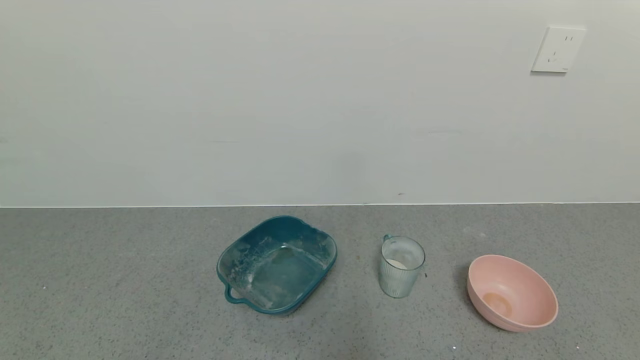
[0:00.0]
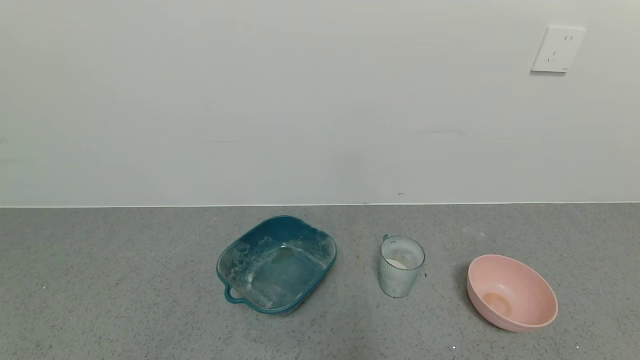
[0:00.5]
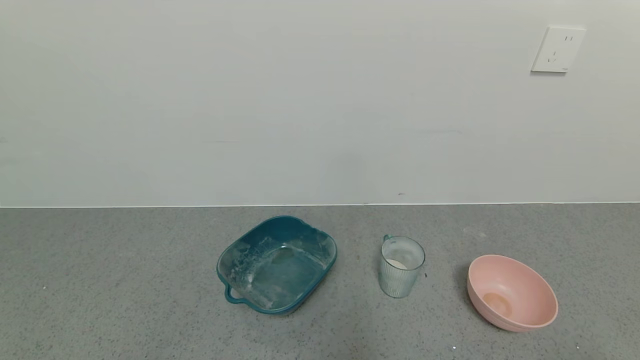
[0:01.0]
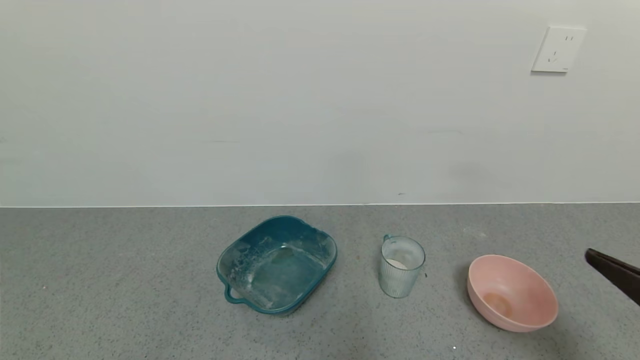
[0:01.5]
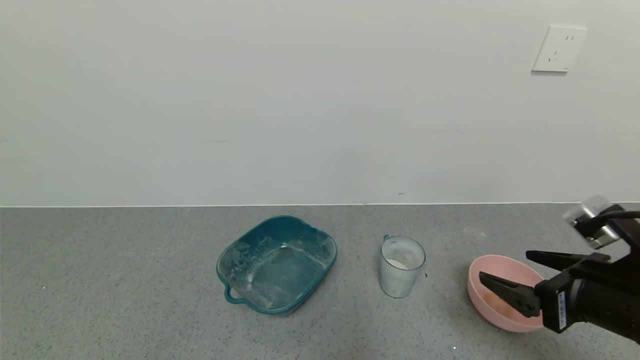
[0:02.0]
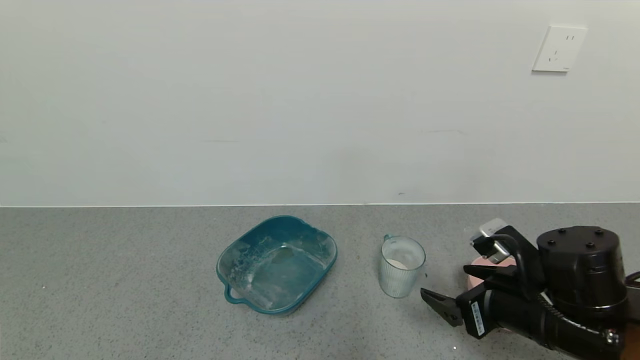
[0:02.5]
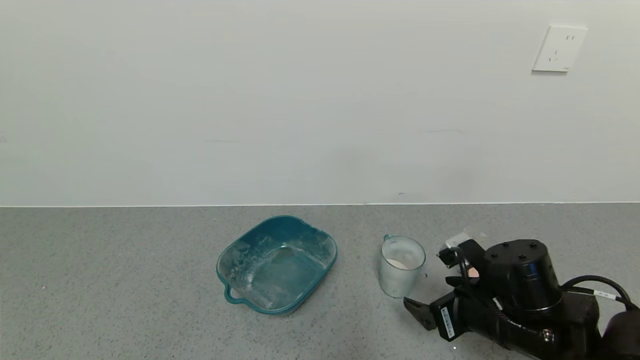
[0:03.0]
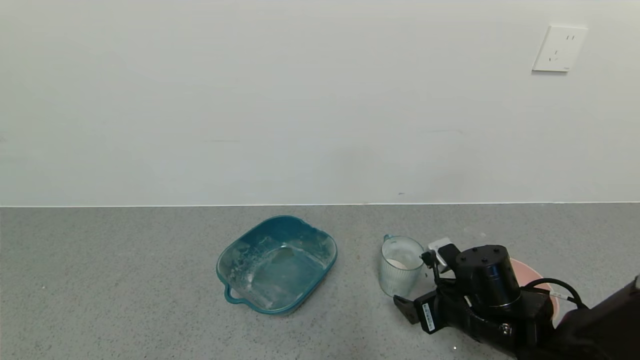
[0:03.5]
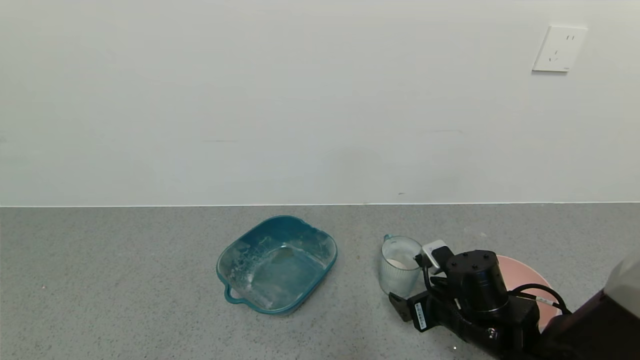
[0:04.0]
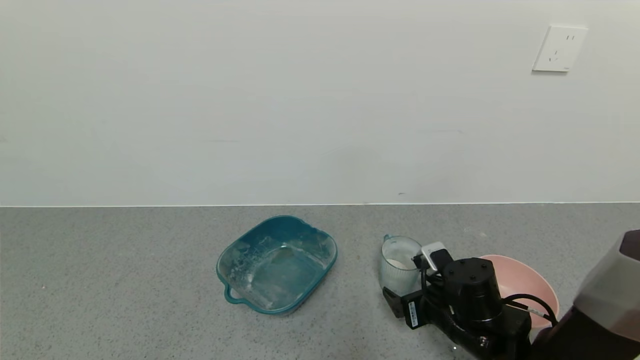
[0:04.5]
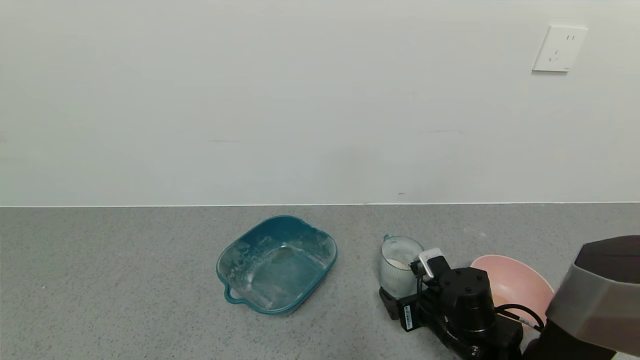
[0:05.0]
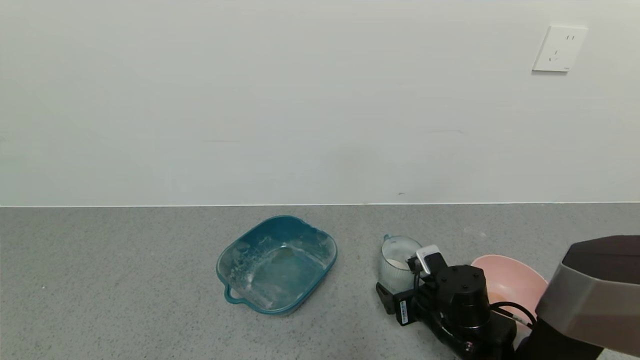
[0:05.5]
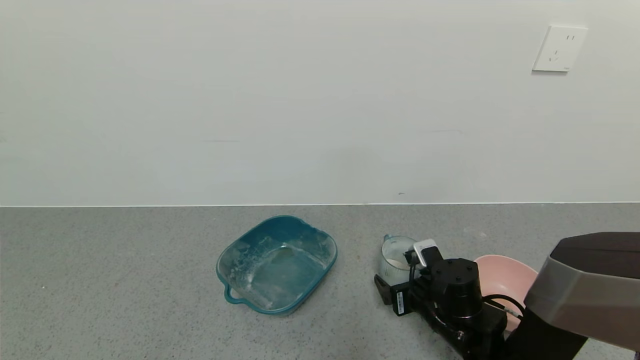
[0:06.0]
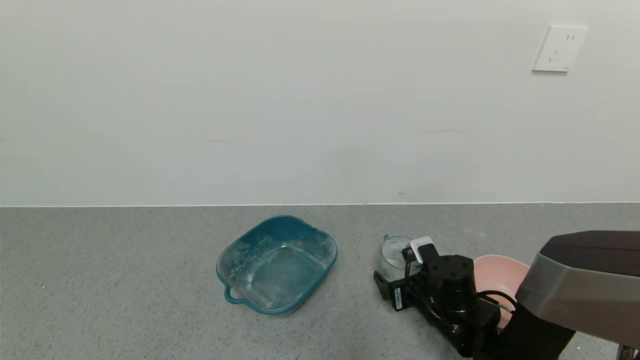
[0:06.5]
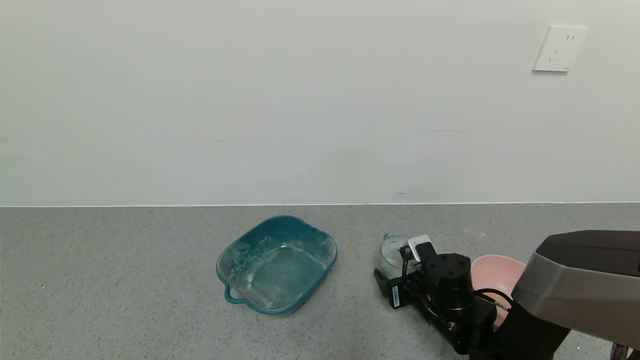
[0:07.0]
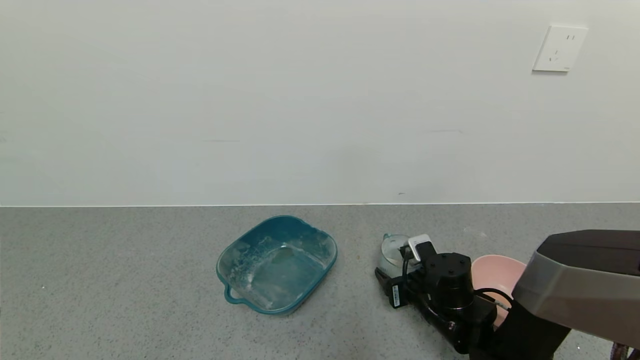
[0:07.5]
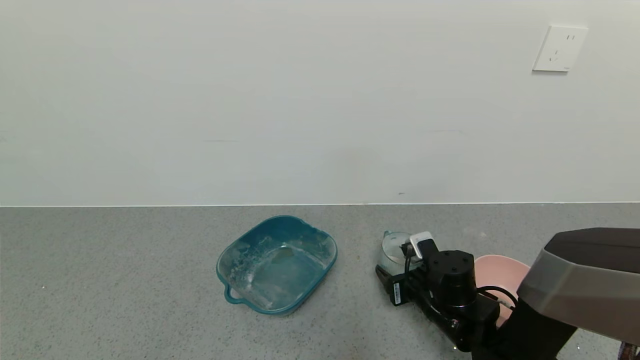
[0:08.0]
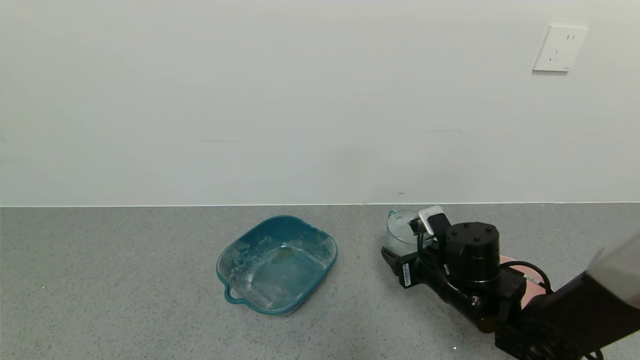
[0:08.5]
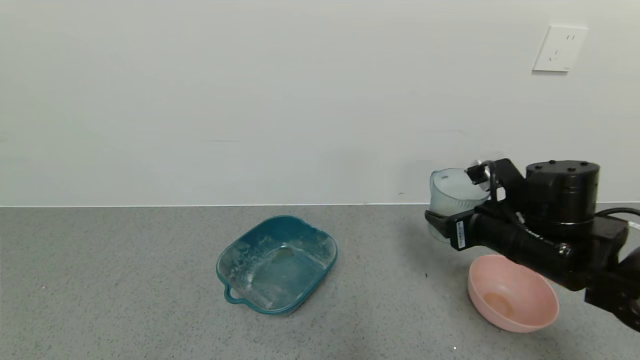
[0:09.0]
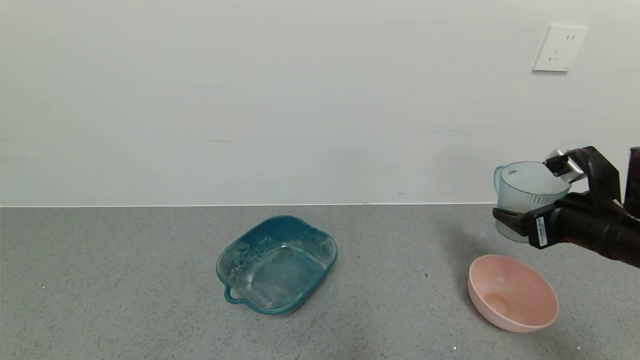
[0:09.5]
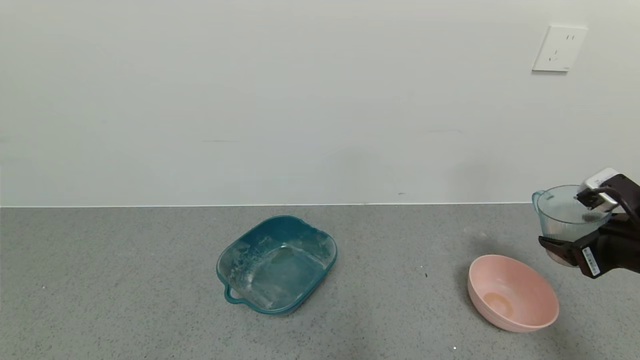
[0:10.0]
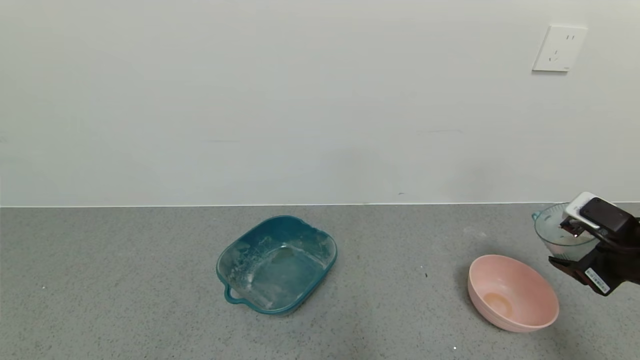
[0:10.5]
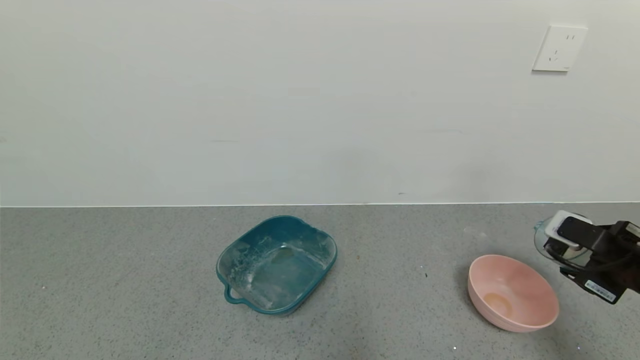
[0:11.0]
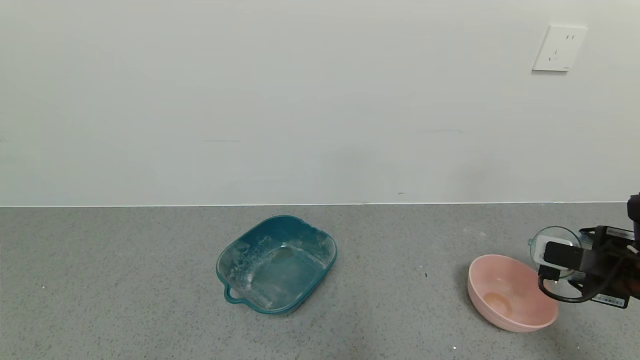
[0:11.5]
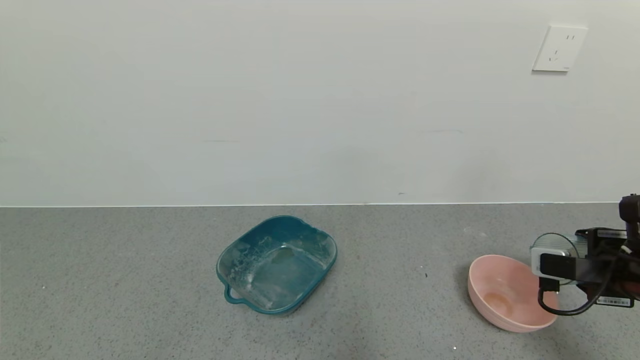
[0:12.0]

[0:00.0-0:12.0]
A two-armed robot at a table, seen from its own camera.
Task of the whole recording: use a gripper to pick up the cup and pour the powder into a bowl or tray.
Step, 0:00.0 to 0:07.0: Grasp the glass of powder with the right gripper.
0:00.0 to 0:02.0: The right gripper heads forward and upward, covering approximately 20 cm.
0:02.0 to 0:04.0: The right gripper shifts roughly 20 cm downward, to the left and forward.
0:04.0 to 0:06.0: The grippers stay close to where they were, moving slightly.
0:06.0 to 0:08.0: The right gripper closes.
0:08.0 to 0:10.0: The right gripper shifts some 25 cm to the right and upward.

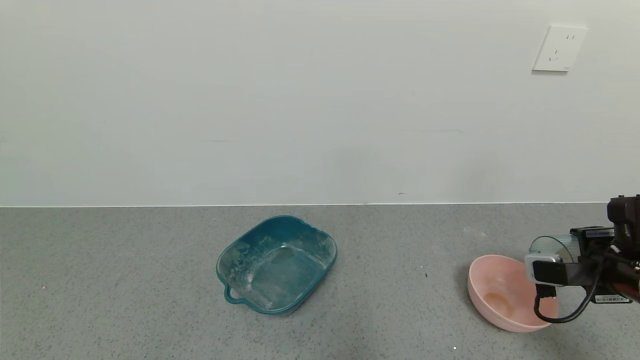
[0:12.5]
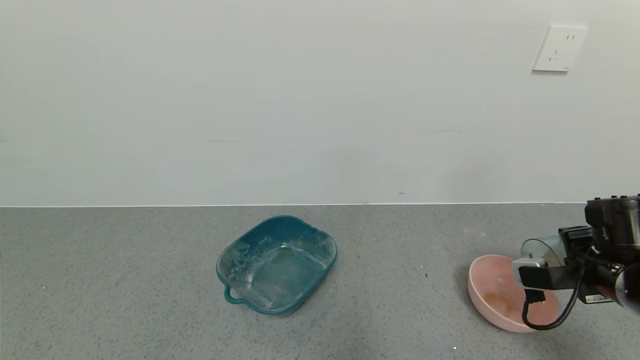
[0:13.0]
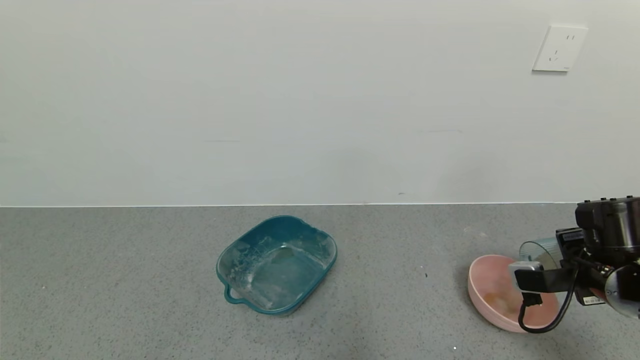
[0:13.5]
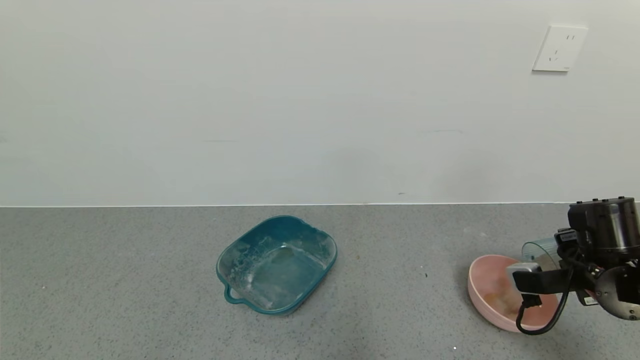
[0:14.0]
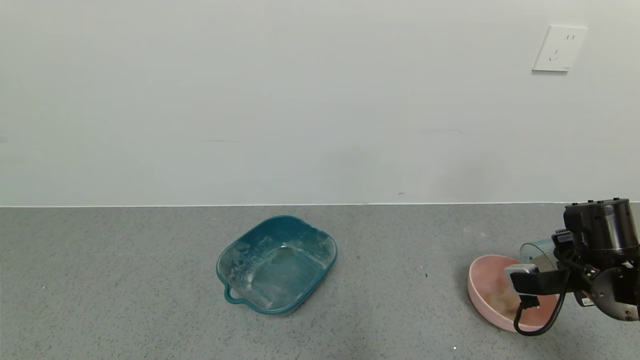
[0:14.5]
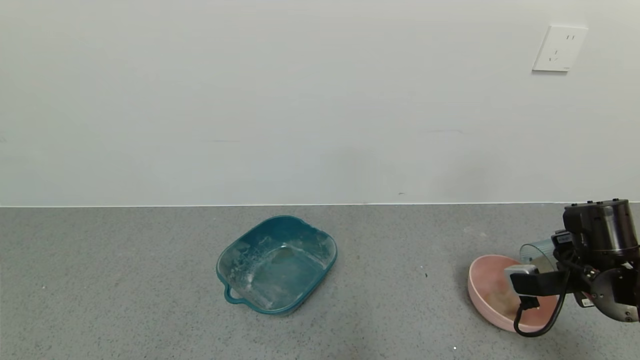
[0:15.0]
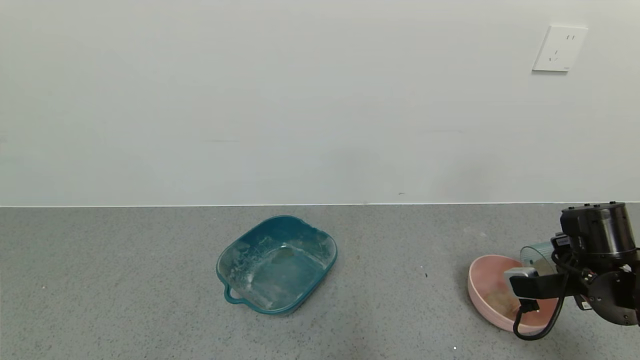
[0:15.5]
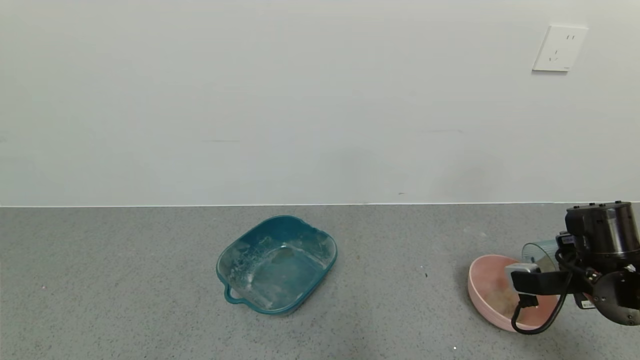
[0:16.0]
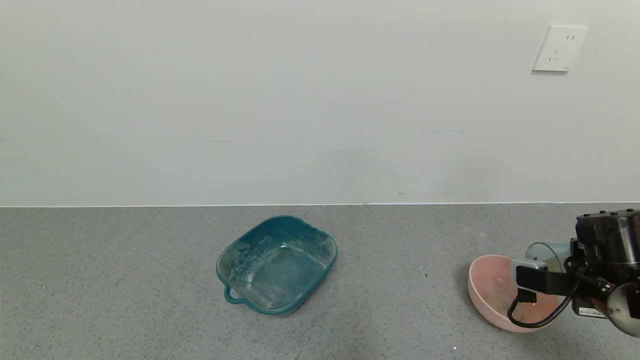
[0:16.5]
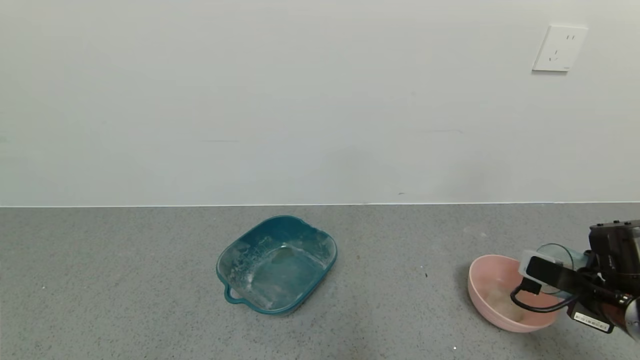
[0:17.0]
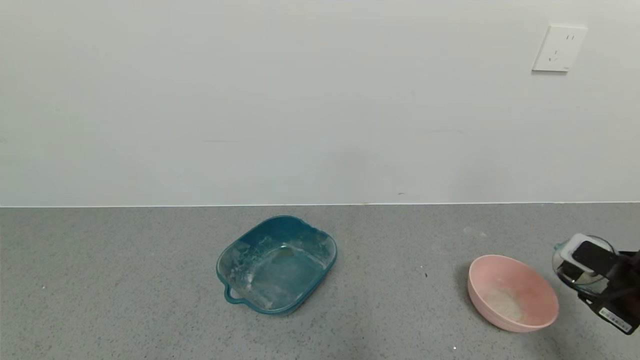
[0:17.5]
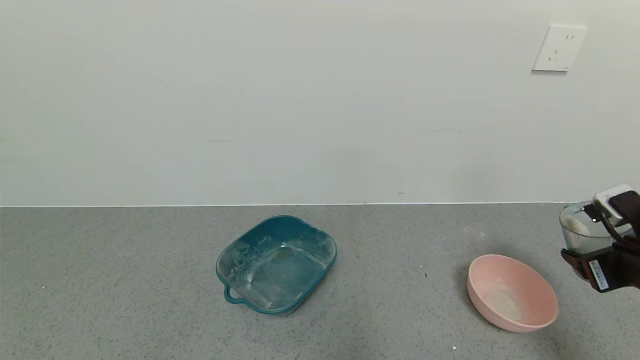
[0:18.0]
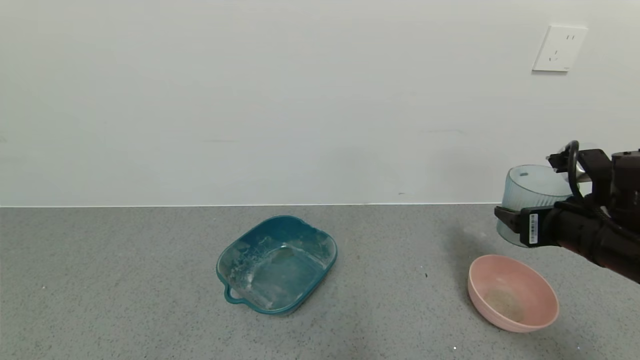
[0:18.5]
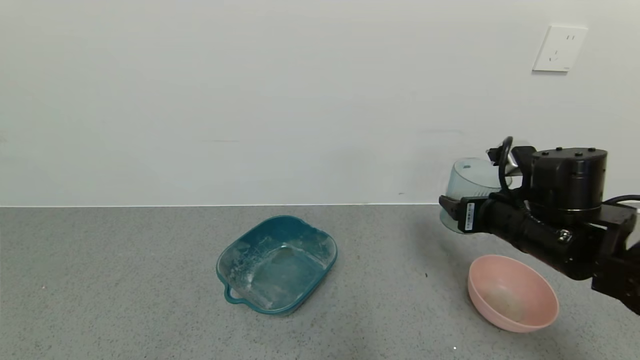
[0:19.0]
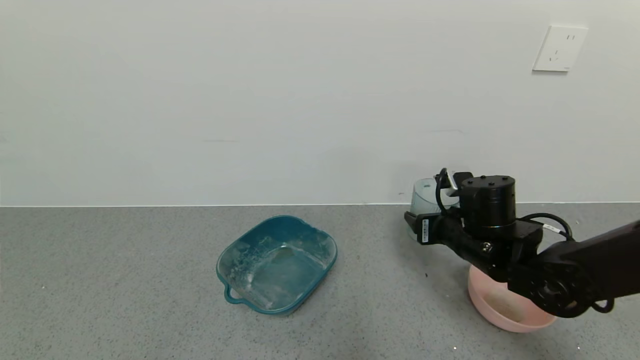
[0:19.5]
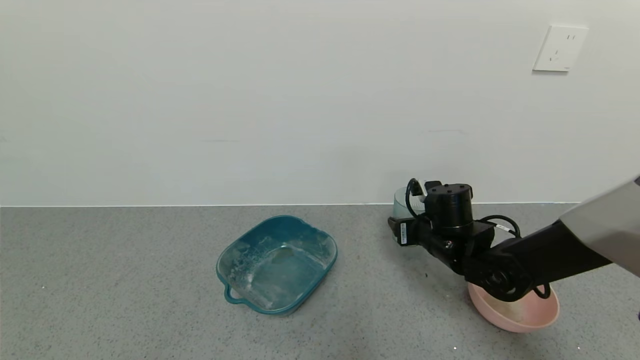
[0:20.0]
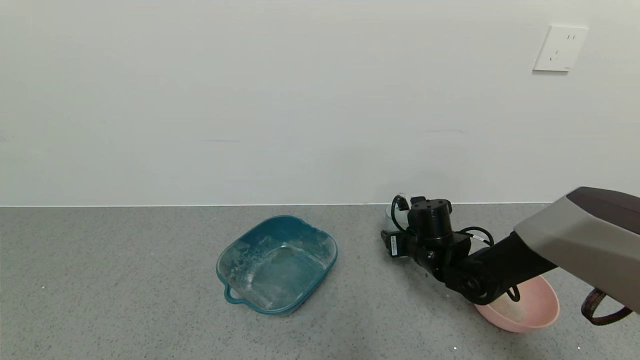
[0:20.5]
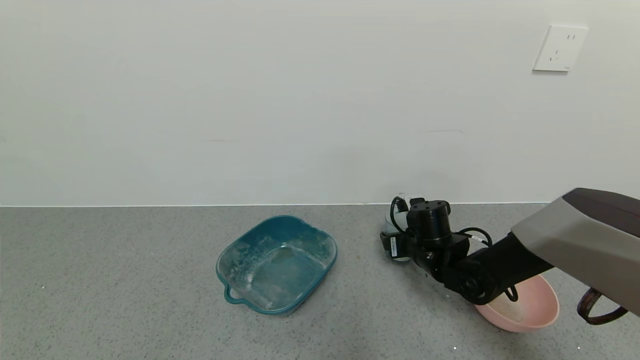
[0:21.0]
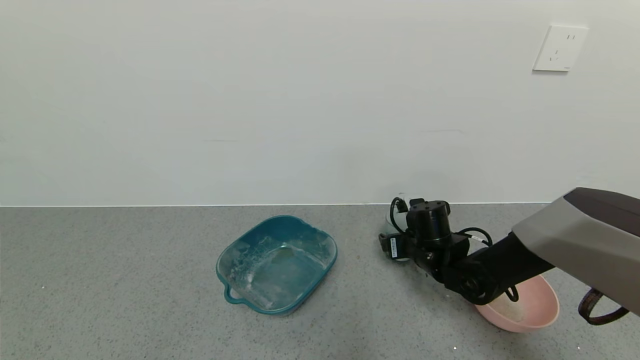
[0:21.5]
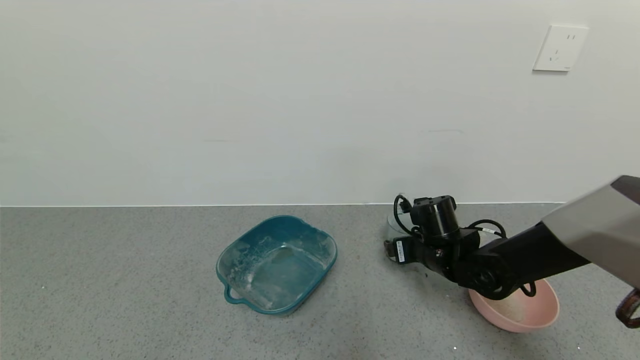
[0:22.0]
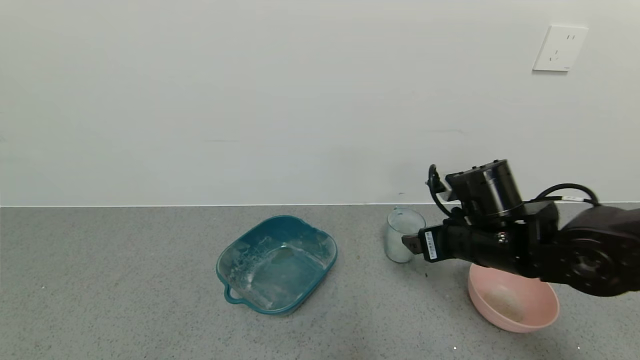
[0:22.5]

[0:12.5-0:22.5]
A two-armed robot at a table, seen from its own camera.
Task of the whole recording: use a gripper to pick up the cup and pour the powder into a bowl or tray.
Step, 0:12.5 to 0:16.5: Pour the powder into the pink bowl with the right gripper.
Step, 0:17.0 to 0:22.0: Place the glass cup down with the right gripper.
0:12.5 to 0:16.5: The grippers stay close to where they were, moving slightly.
0:16.5 to 0:18.5: The right gripper moves upward, roughly 5 cm.
0:18.5 to 0:20.5: The right gripper travels downward, forward and to the left by about 25 cm.
0:20.5 to 0:22.5: The right gripper is displaced upward and backward by about 15 cm, and opens.
